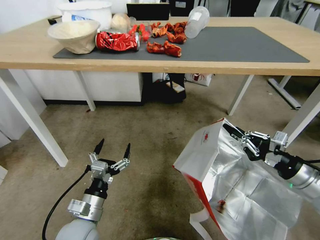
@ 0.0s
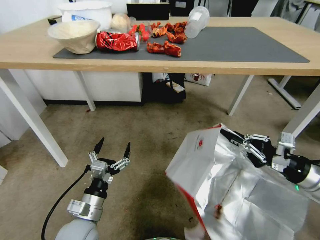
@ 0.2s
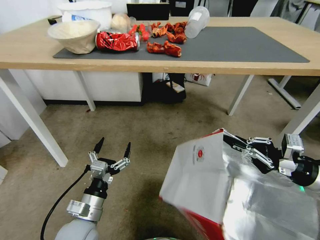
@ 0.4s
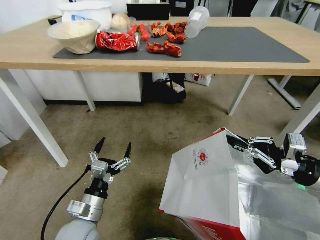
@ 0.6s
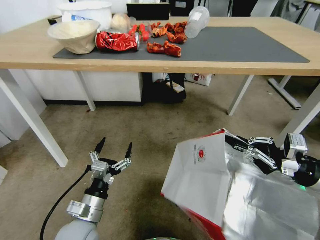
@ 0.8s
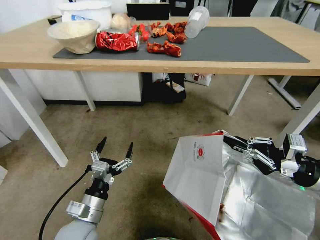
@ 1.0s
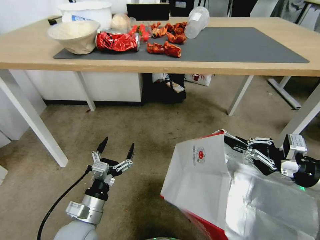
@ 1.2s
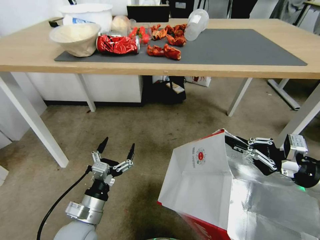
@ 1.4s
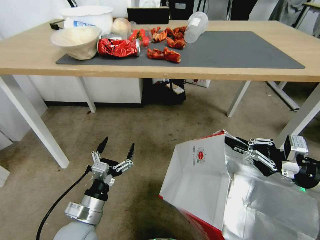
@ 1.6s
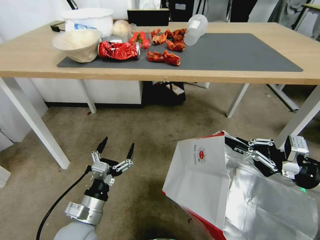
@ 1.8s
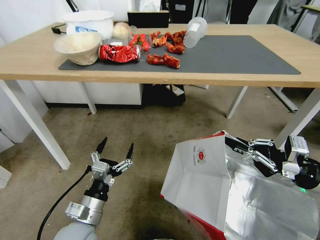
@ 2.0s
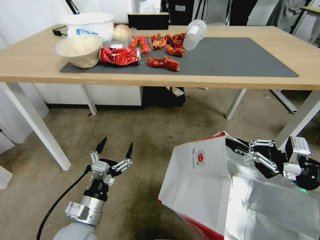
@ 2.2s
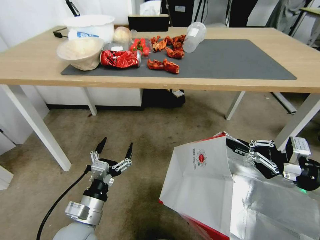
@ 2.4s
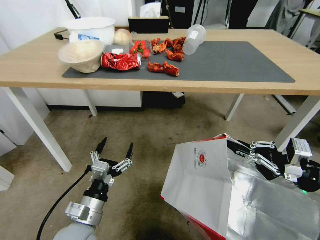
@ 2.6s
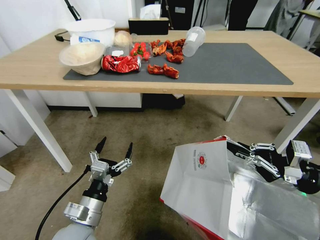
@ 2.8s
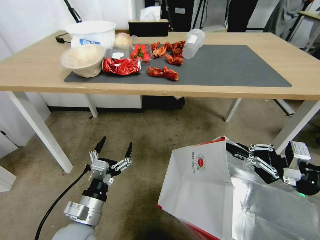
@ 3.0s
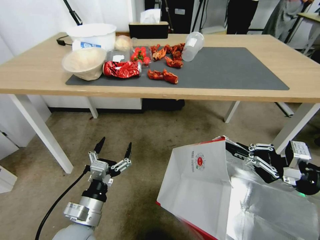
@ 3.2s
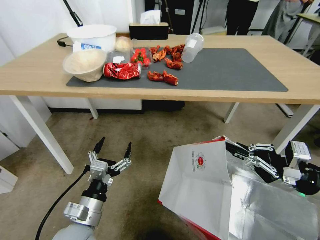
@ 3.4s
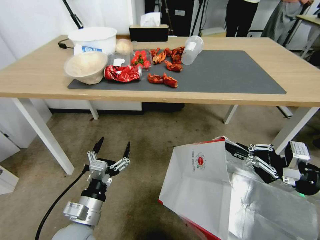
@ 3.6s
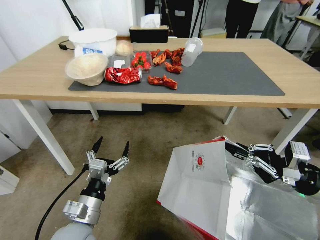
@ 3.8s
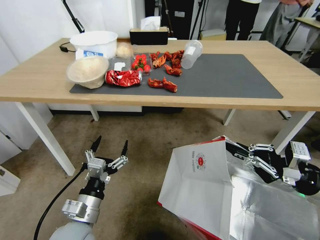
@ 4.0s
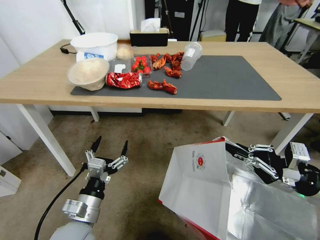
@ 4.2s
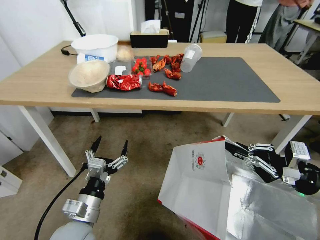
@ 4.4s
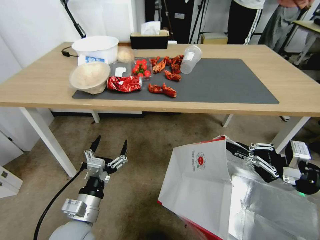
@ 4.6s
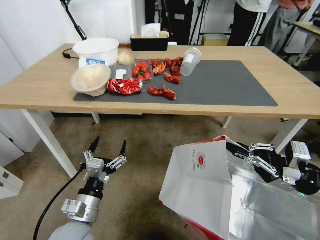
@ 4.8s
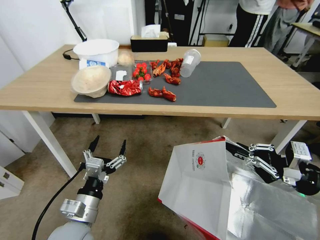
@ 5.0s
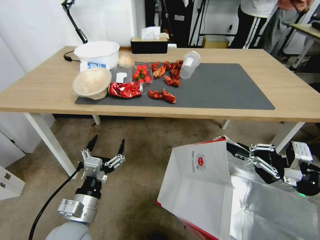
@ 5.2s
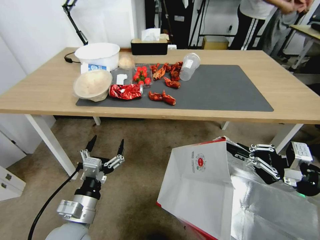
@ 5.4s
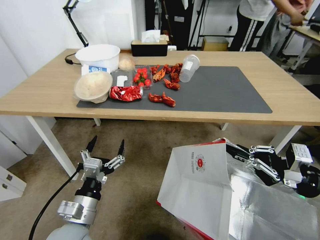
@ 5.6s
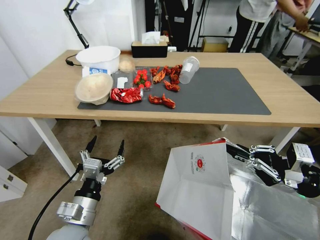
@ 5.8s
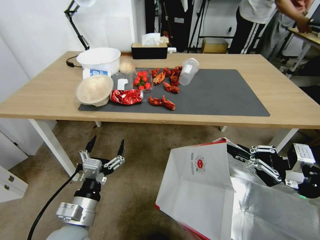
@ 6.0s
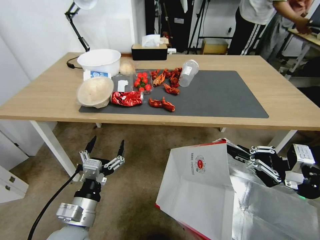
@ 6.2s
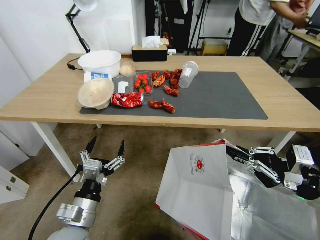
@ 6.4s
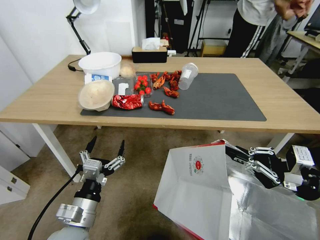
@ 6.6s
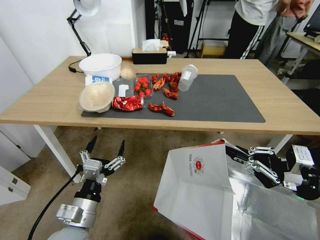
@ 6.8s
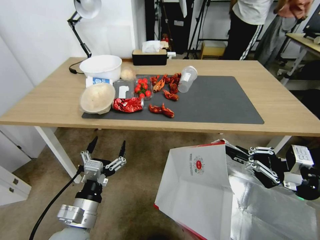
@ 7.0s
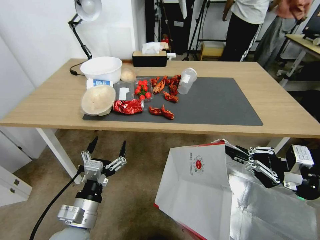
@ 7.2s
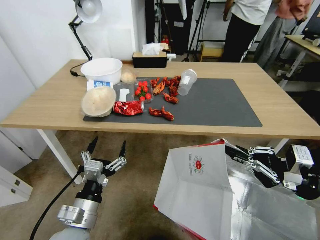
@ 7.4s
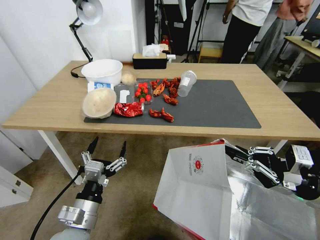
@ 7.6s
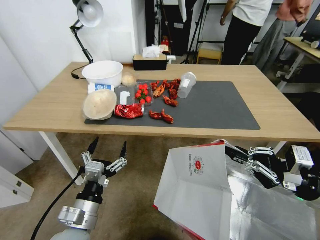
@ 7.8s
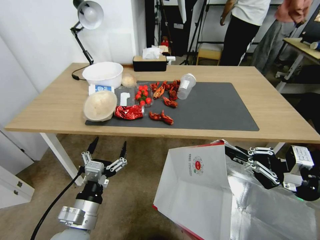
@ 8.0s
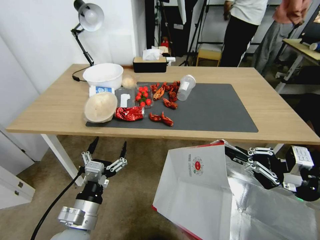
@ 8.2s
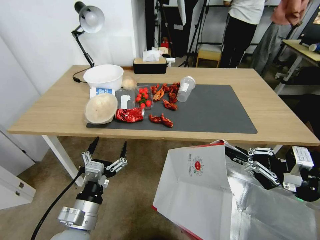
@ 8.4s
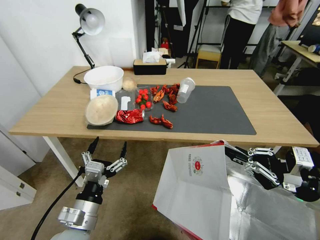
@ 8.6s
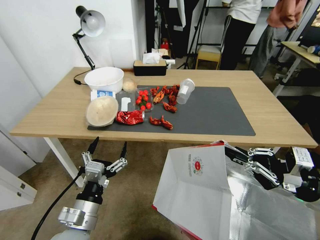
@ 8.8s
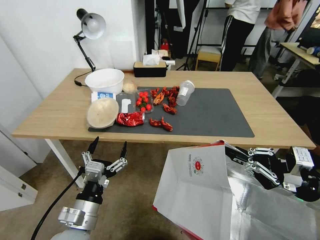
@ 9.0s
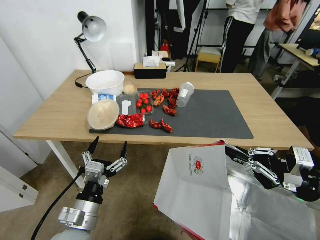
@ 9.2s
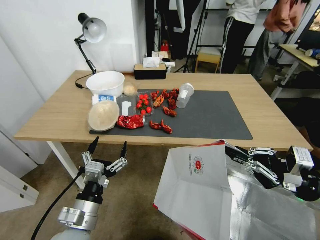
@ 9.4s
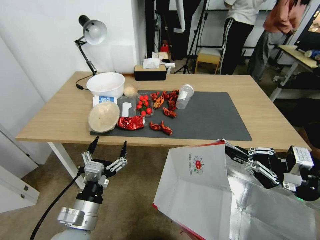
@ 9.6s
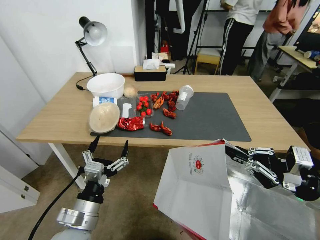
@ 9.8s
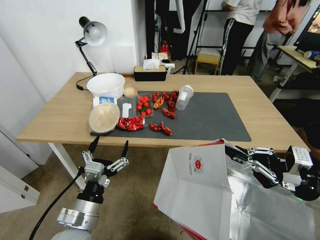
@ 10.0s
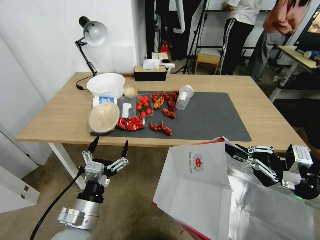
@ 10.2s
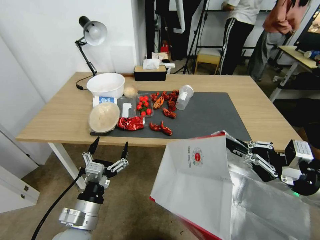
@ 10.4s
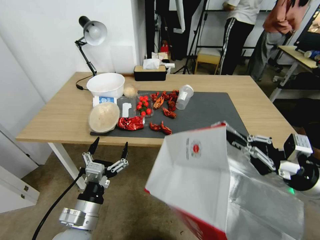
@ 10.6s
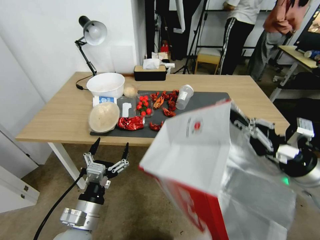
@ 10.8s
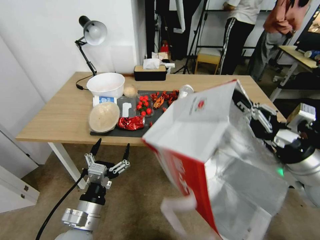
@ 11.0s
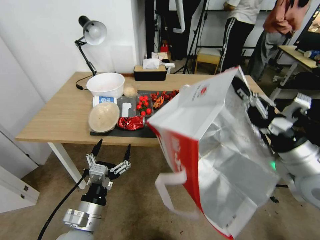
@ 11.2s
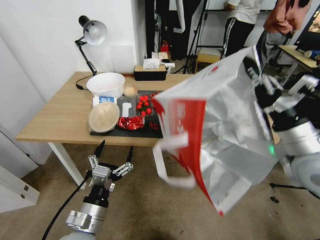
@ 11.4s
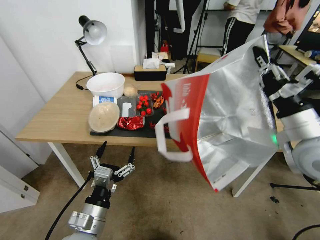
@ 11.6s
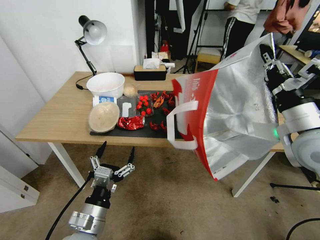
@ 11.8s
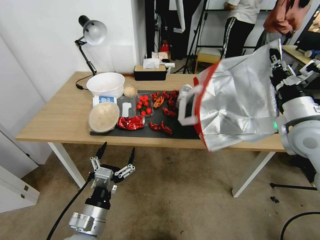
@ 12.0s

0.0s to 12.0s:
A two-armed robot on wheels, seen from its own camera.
Task of the whole recording: Pick up the food delivery bag from the floor and place it on the table.
10.4s to 12.0s: The right gripper goes roughly 15 cm forward and upward.

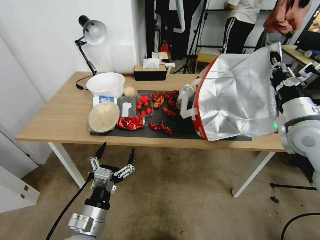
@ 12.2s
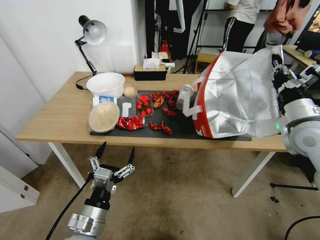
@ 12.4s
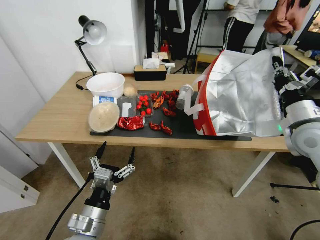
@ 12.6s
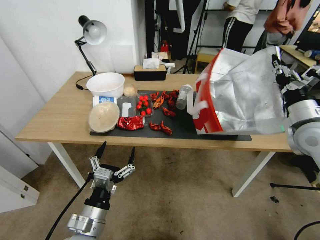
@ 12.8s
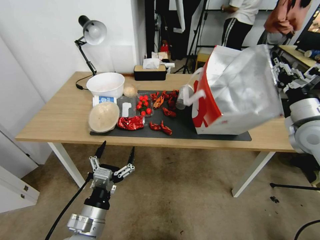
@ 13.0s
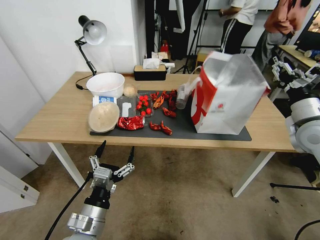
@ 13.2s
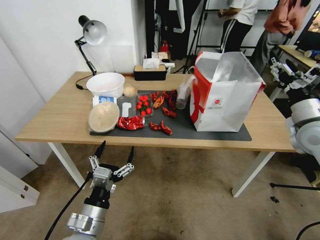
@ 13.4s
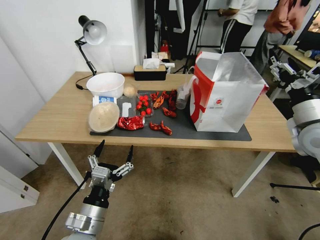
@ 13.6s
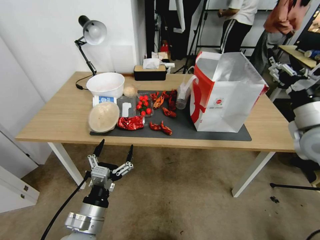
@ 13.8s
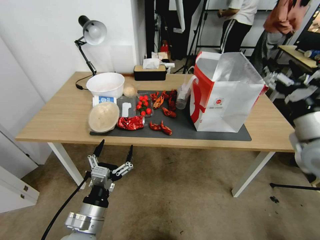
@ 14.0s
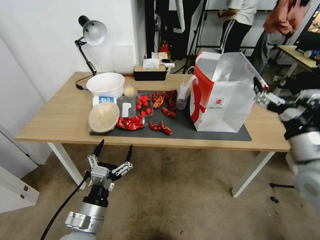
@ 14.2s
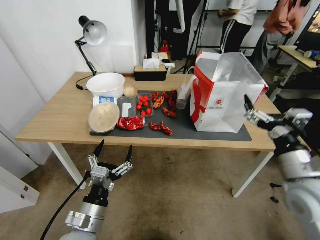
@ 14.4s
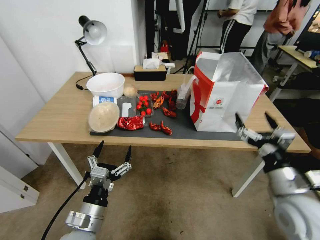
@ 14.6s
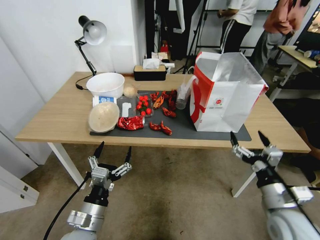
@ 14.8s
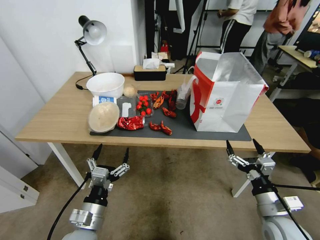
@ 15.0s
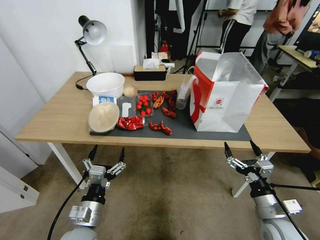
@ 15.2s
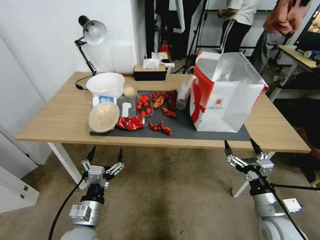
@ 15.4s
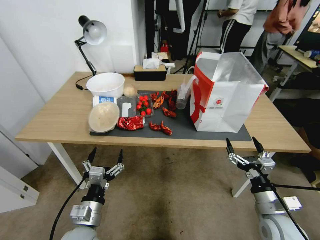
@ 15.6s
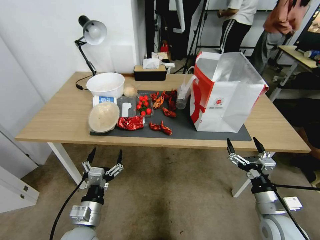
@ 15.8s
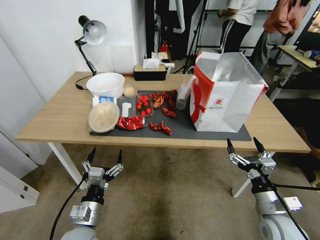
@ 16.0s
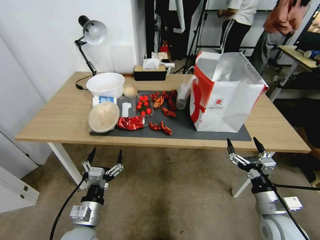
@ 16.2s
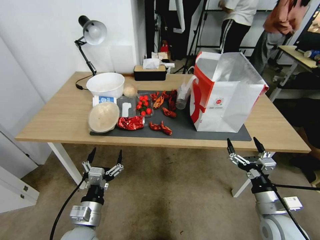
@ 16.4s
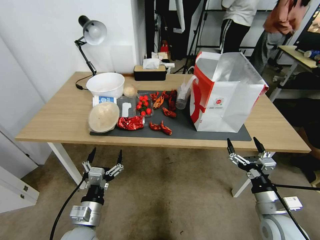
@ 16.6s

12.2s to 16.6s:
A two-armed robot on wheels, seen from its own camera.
Task of the whole recording: Pick up the food delivery bag from the floor and place it on the table.
12.2s to 13.6s: The right gripper opens up.
13.6s to 15.2s: The right gripper moves downward and backward, roughly 25 cm.
15.2s to 16.6s: The grippers stay close to where they were, moving slightly.

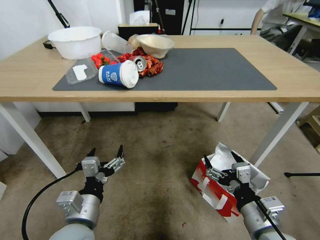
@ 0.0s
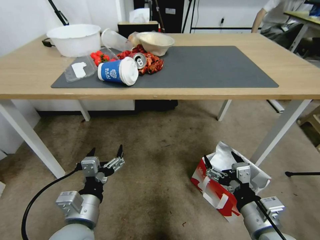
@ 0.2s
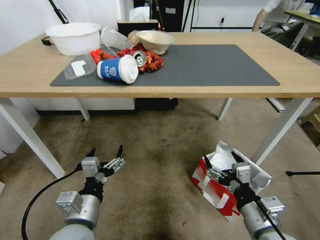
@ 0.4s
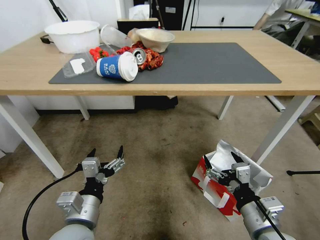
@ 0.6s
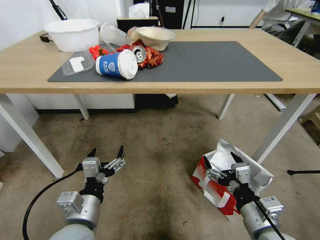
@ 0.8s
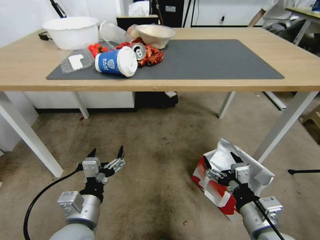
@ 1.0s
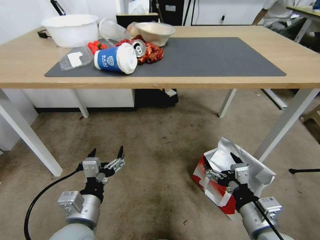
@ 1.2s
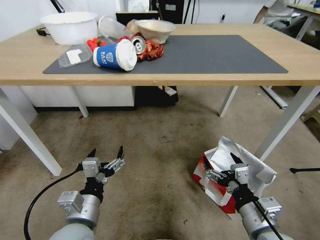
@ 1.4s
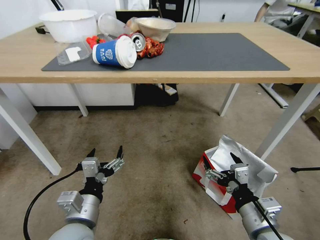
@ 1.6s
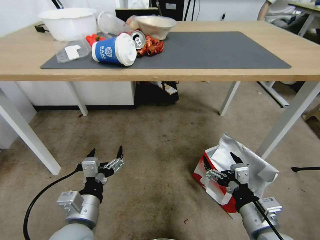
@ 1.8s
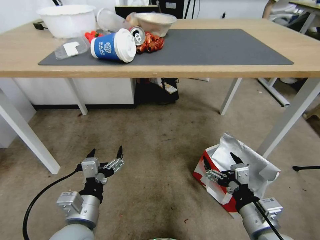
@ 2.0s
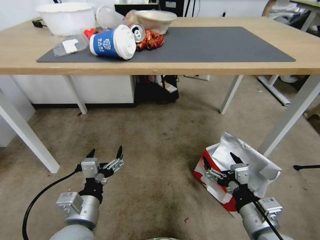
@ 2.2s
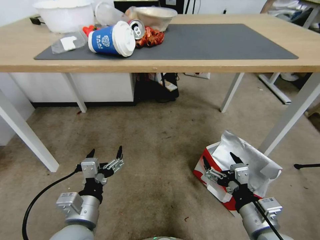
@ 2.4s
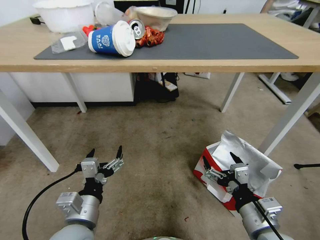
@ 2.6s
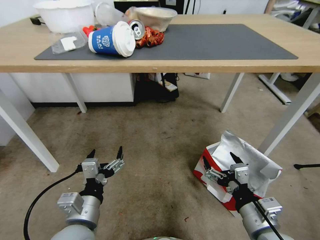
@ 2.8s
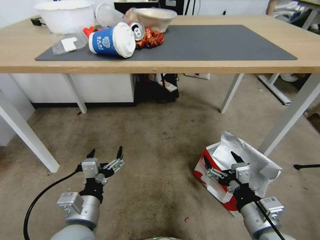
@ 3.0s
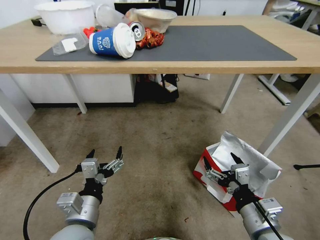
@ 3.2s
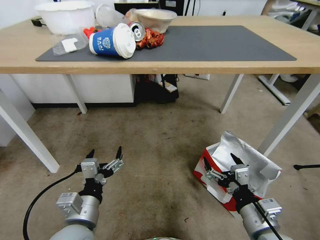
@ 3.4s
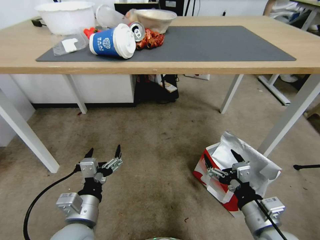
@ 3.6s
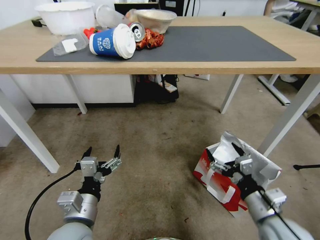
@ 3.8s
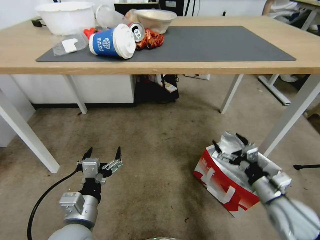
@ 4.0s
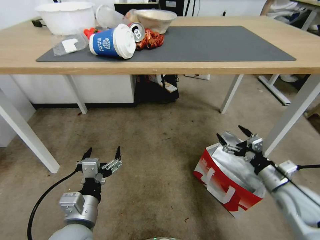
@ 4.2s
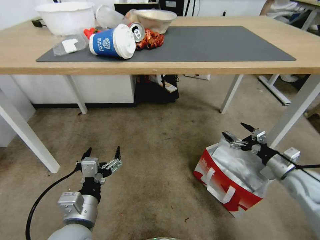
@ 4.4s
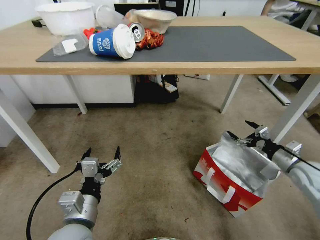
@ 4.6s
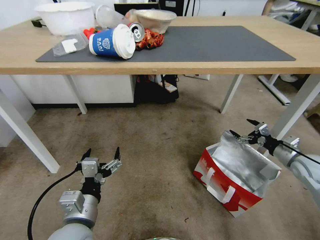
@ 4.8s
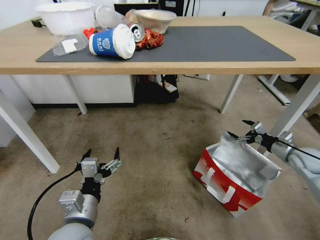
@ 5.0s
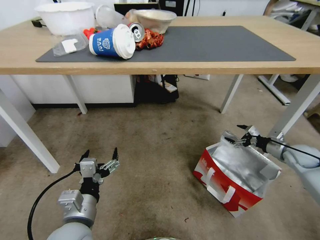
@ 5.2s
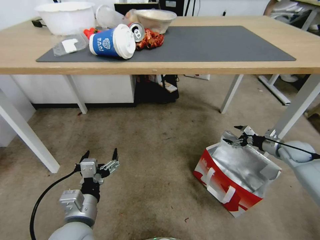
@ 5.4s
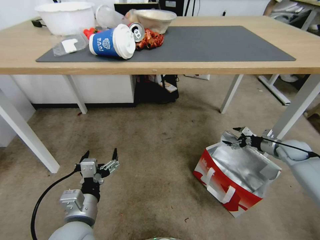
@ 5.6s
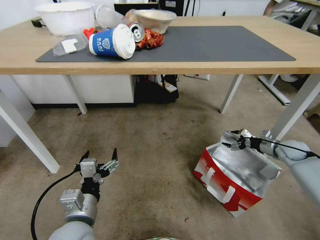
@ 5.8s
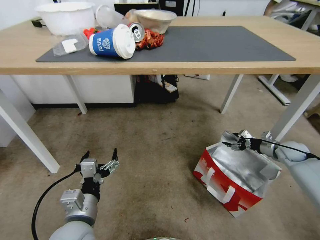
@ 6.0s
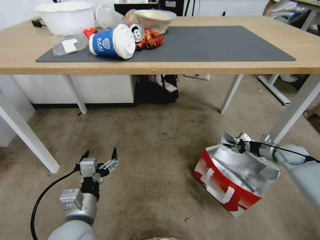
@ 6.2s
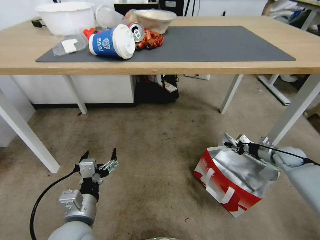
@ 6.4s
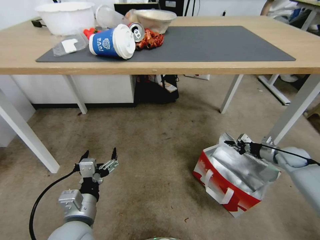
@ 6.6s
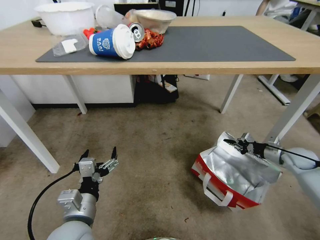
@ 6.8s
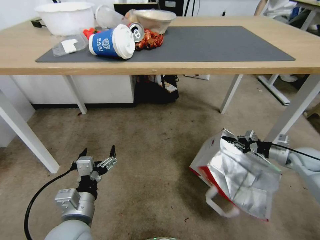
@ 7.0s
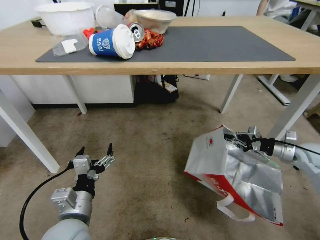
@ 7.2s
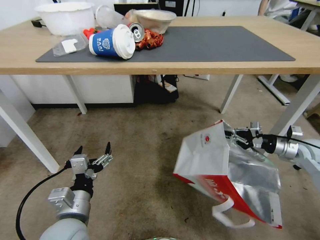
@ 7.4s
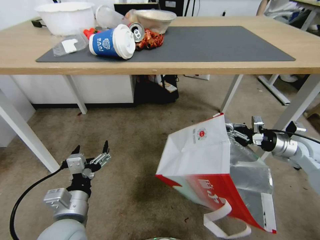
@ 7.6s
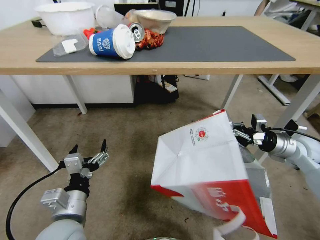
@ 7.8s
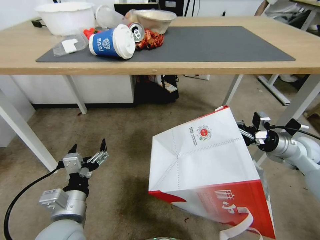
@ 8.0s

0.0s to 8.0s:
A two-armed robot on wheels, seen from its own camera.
Task of the whole recording: Pick up the food delivery bag from the floor and place it on the table.
3.2s to 4.8s: The right gripper shifts approximately 35 cm to the right and forward.
4.8s to 6.4s: The right gripper travels downward and forward by some 10 cm, and closes its fingers.
6.4s to 8.0s: The right gripper moves upward and to the left, approximately 15 cm.
